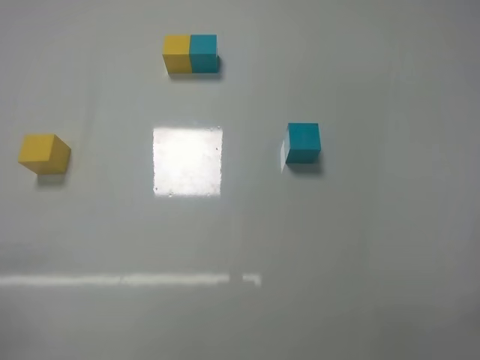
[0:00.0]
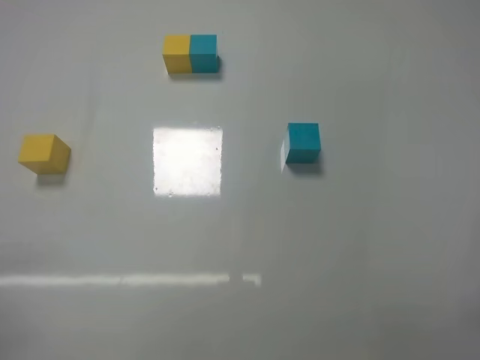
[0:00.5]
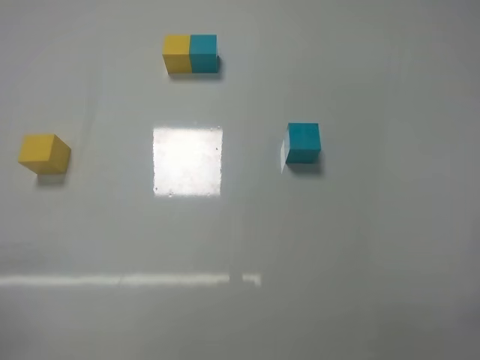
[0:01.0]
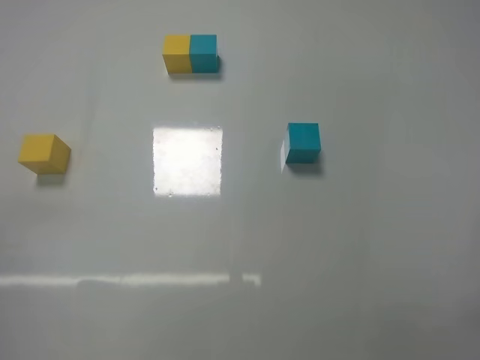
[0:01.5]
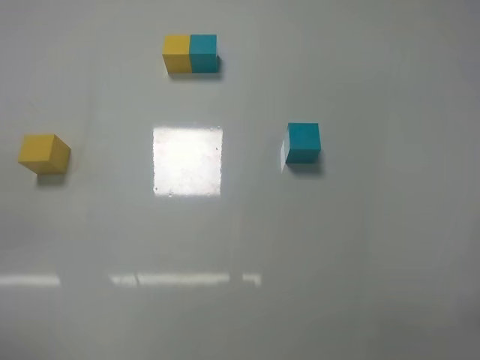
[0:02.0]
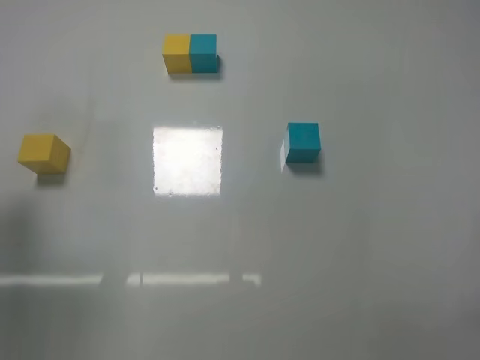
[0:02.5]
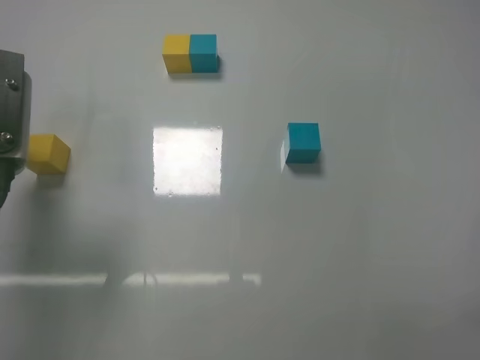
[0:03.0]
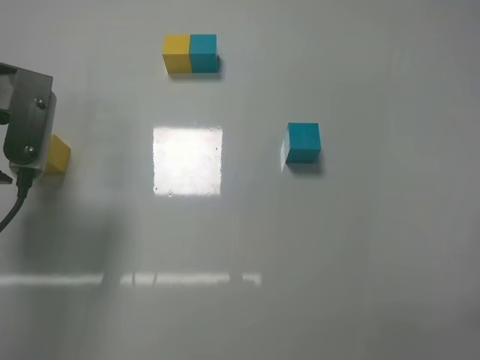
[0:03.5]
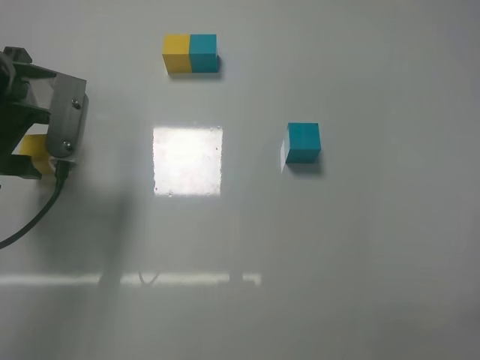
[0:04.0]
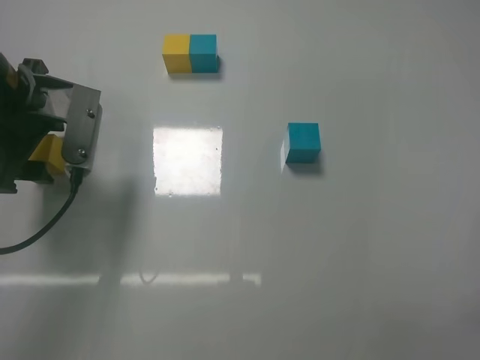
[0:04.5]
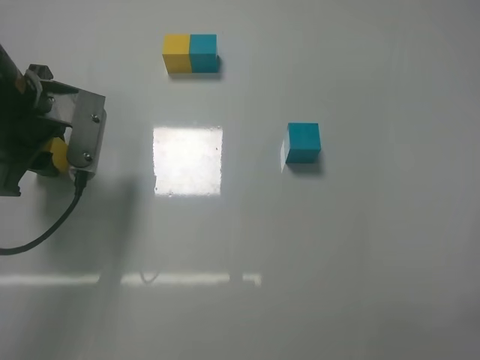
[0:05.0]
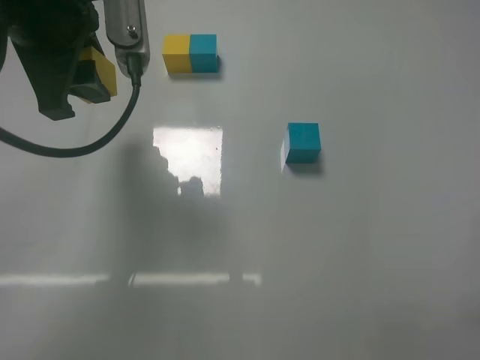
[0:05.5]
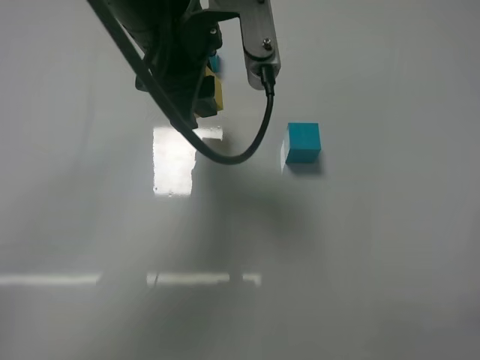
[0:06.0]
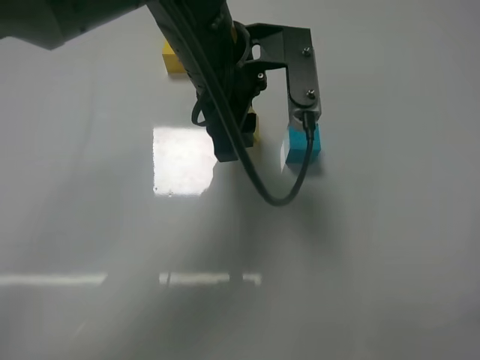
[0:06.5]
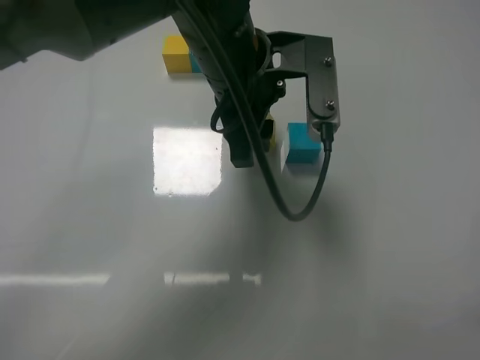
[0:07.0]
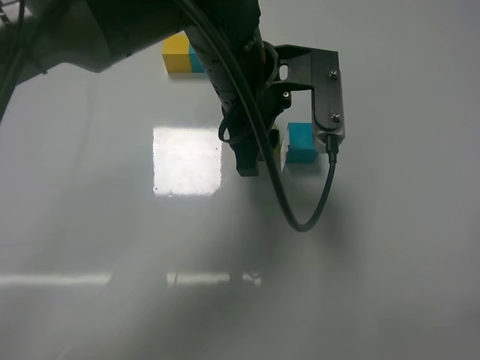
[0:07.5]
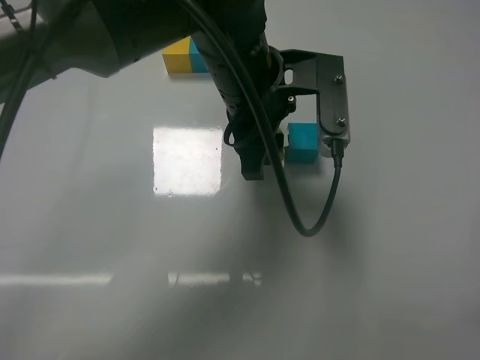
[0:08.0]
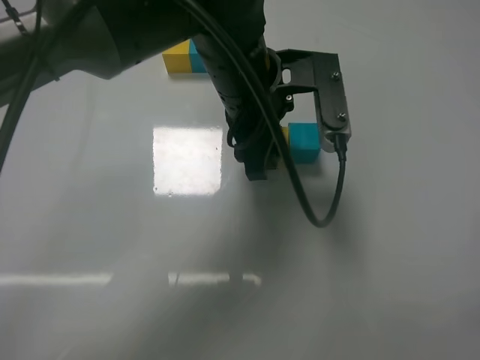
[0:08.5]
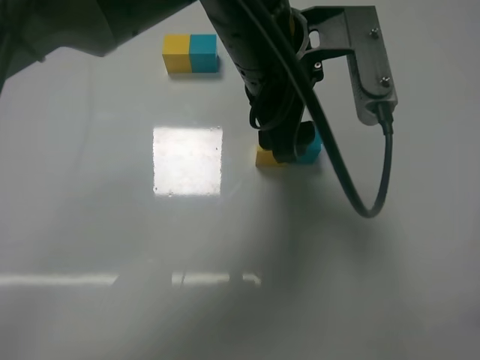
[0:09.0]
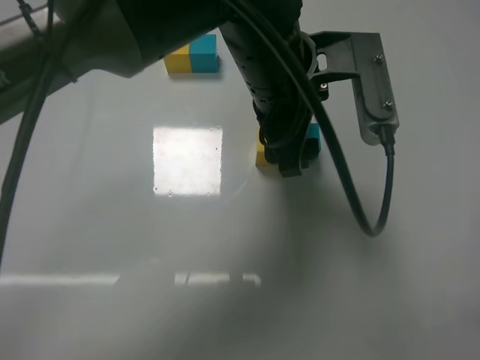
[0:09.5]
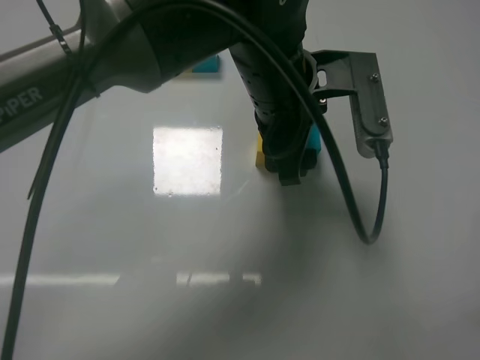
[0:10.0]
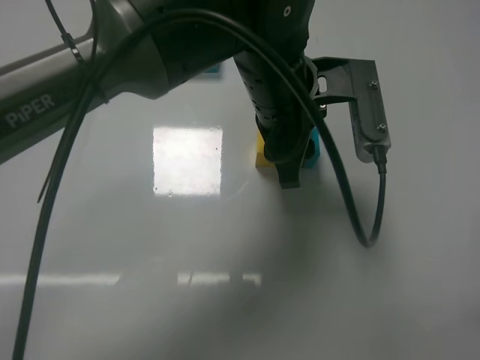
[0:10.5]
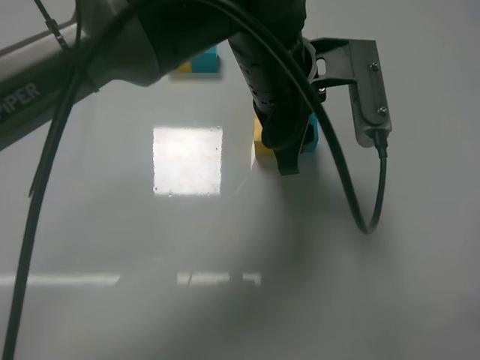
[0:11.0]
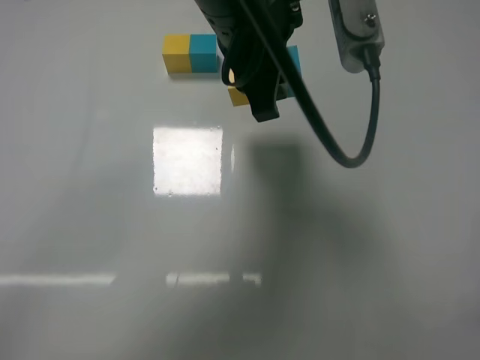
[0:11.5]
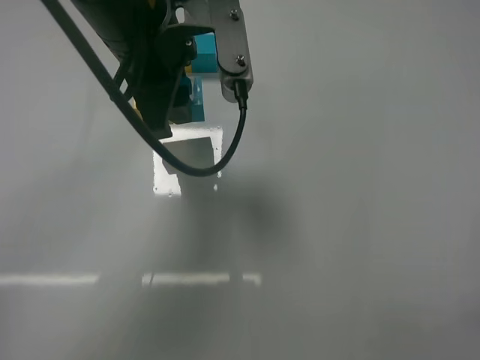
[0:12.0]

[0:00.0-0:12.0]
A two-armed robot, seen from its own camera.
Task of the whole recording: According to the building block template in front, assemble the scattered blocks together.
Step, 0:00.0 to 0:04.5: Grasp the yellow block with left gripper.
Step, 0:05.0 to 0:08.5: Put the yellow cube on the left of the blue cube with the left gripper.
0:02.0 to 0:04.0: The left gripper heads forward and to the right, covering some 20 cm.
0:04.0 to 0:06.0: The left gripper moves to the right, roughly 20 cm, and closes its fingers.
0:06.0 to 0:08.0: The left gripper shifts approximately 10 cm to the right and downward.
0:08.0 to 0:10.0: The left gripper opens up.
0:10.0 to 0:12.0: The left gripper moves to the left, approximately 15 cm, and closes its fingers.

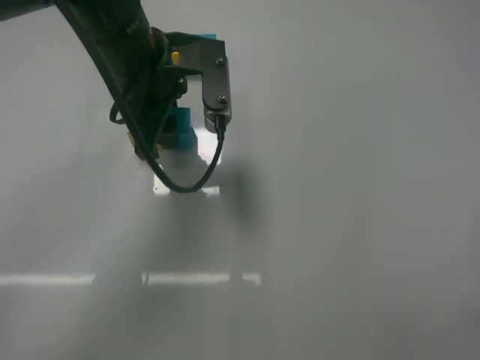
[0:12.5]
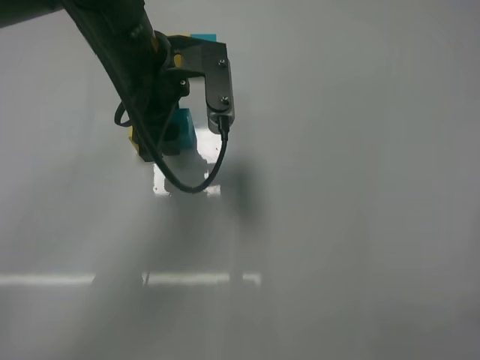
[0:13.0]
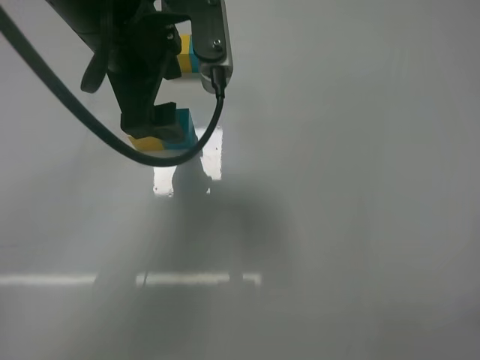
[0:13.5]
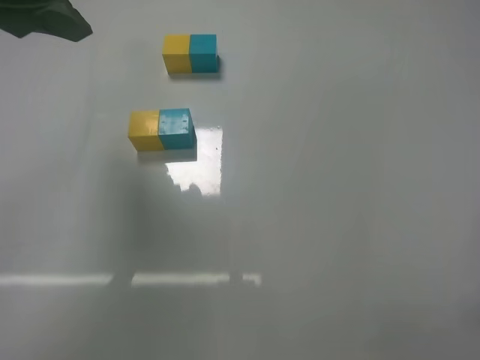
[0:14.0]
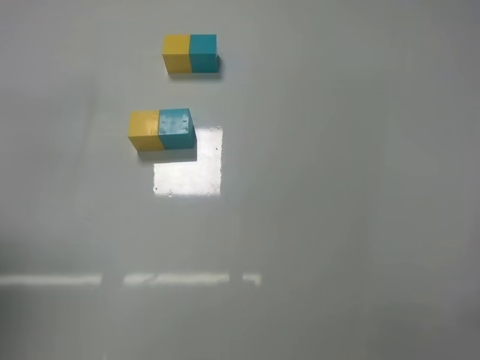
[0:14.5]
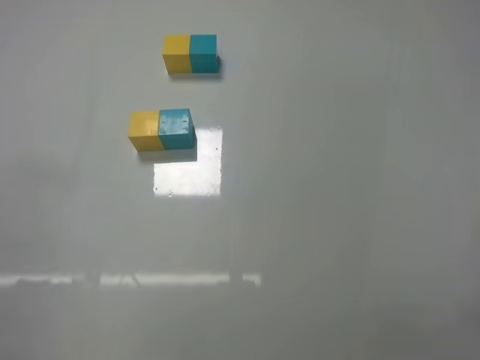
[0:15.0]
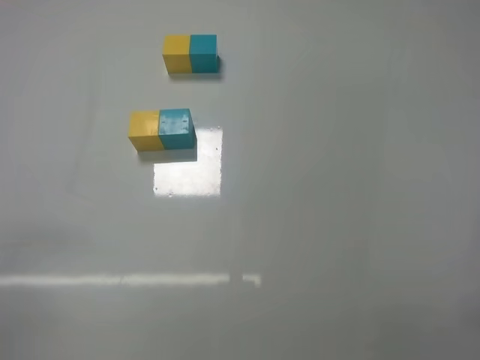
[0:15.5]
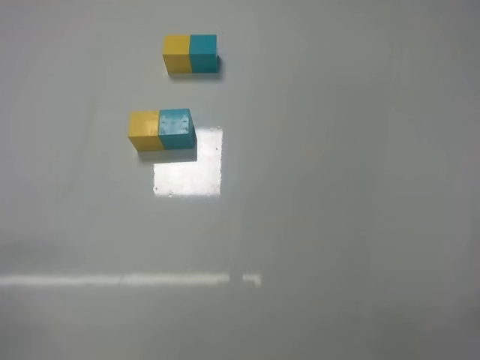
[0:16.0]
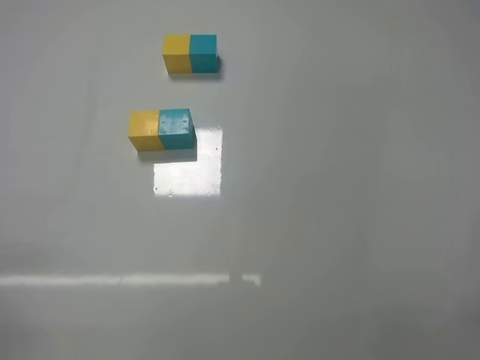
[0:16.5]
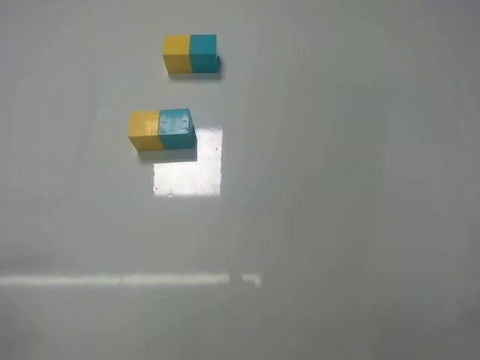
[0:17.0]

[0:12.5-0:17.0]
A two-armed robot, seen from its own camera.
Task of the whole recording: According to the building block template in front, assemble the scattered blocks together.
0:12.5 to 0:14.5: The left gripper goes some 30 cm to the left and backward, and opens up.
0:14.5 to 0:17.0: The left gripper moves downward and backward, roughly 25 cm.
